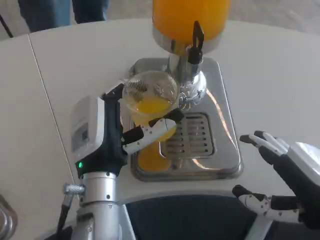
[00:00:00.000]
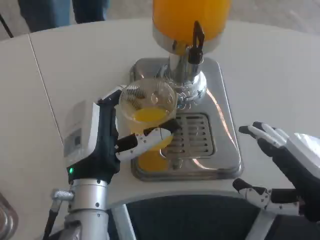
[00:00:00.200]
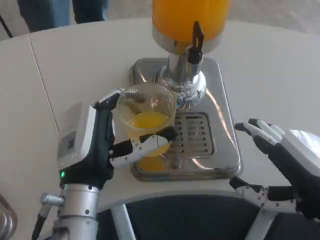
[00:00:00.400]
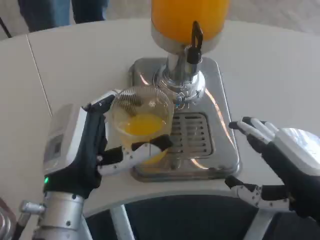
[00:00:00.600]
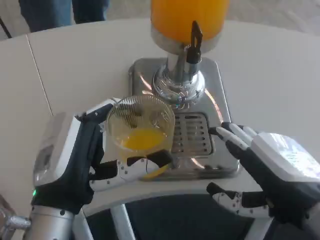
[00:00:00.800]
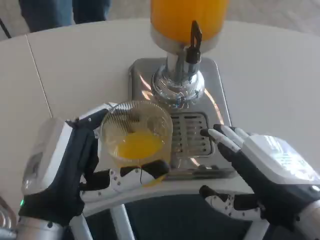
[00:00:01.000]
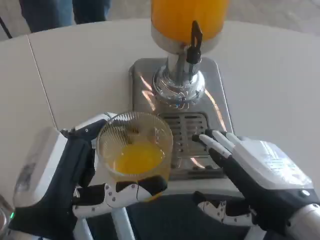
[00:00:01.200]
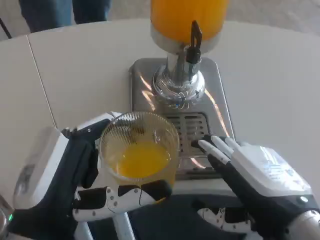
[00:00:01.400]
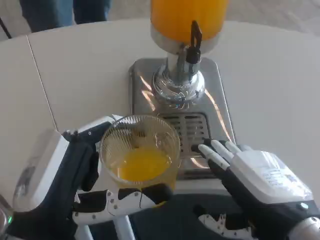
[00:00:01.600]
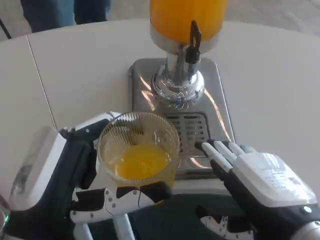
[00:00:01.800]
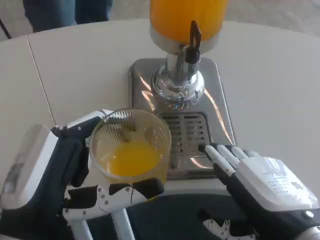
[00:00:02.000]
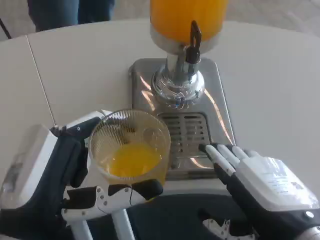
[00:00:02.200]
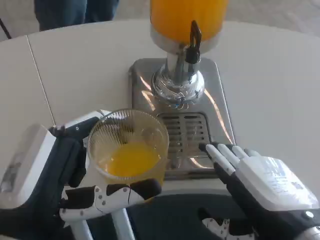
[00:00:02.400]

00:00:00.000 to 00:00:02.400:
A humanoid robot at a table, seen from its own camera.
Task of the whole recording: Grasp the cup under the faucet to collect the drink, then remove the cup.
00:00:00.000 to 00:00:01.200: The left hand is displaced backward and to the left by roughly 15 cm.

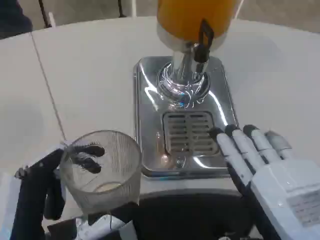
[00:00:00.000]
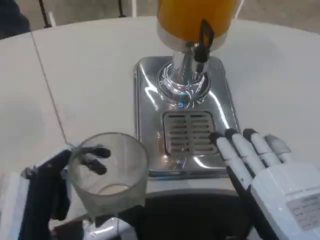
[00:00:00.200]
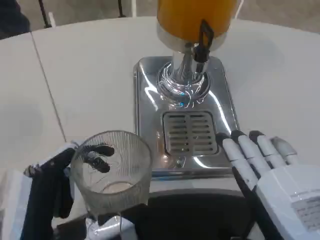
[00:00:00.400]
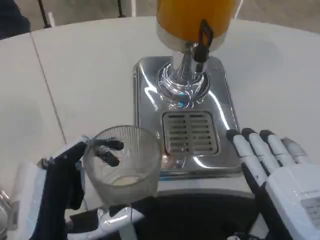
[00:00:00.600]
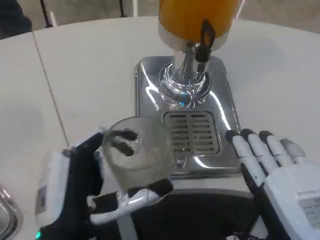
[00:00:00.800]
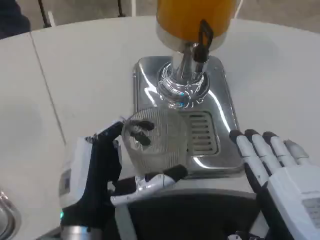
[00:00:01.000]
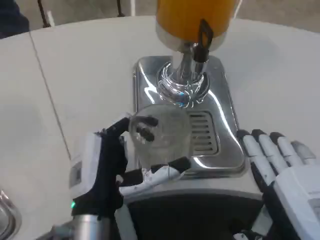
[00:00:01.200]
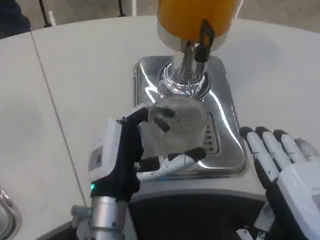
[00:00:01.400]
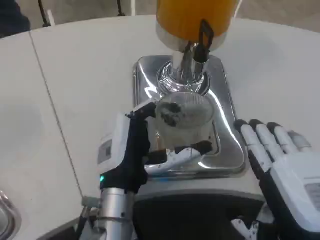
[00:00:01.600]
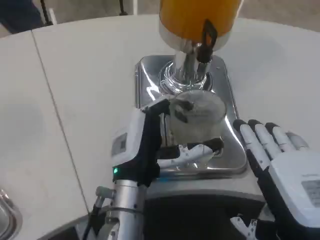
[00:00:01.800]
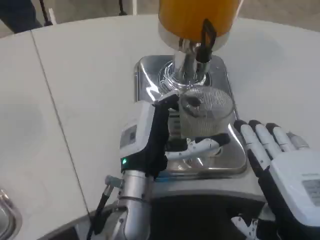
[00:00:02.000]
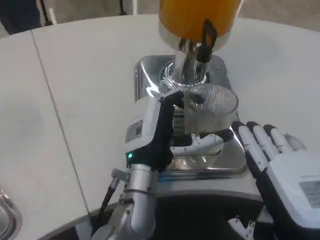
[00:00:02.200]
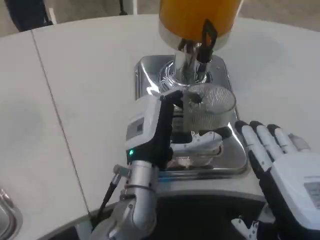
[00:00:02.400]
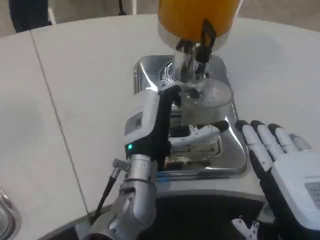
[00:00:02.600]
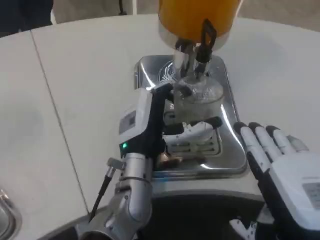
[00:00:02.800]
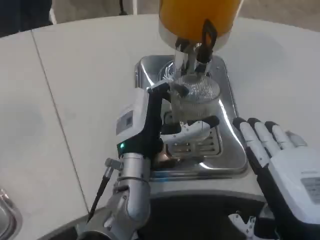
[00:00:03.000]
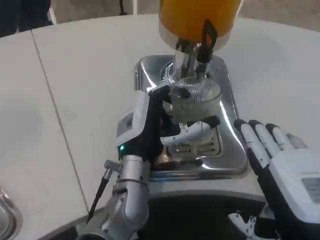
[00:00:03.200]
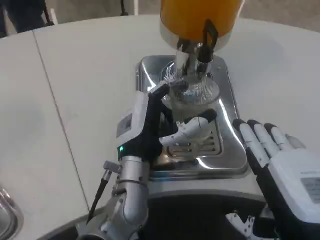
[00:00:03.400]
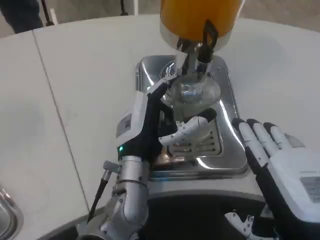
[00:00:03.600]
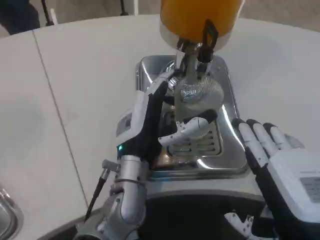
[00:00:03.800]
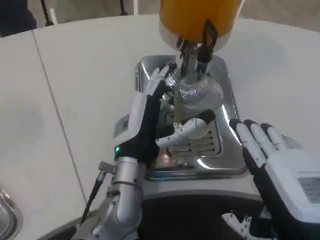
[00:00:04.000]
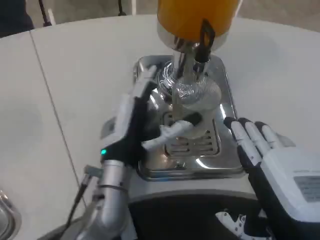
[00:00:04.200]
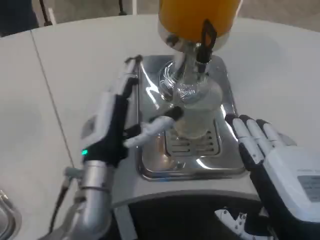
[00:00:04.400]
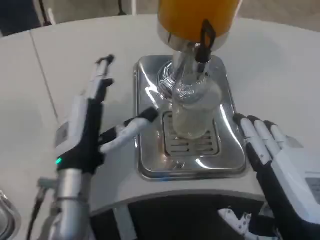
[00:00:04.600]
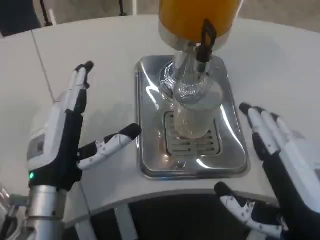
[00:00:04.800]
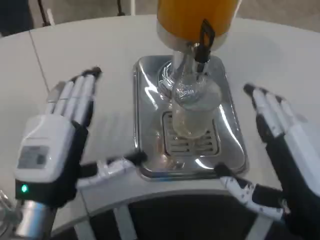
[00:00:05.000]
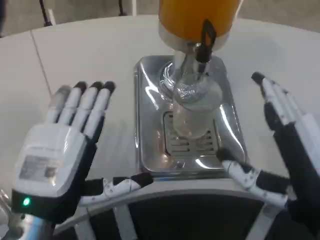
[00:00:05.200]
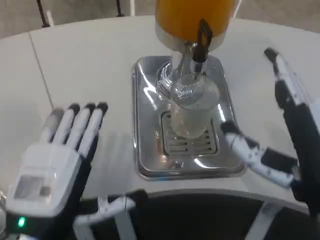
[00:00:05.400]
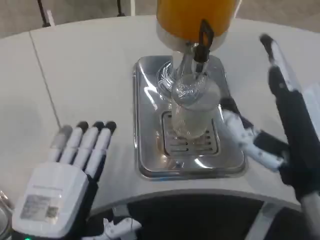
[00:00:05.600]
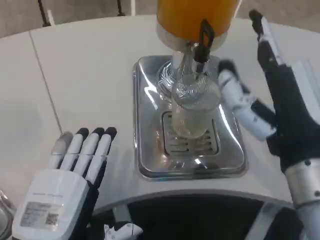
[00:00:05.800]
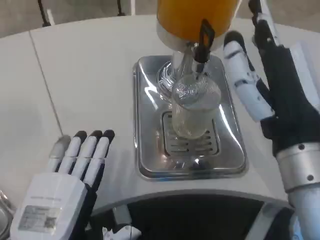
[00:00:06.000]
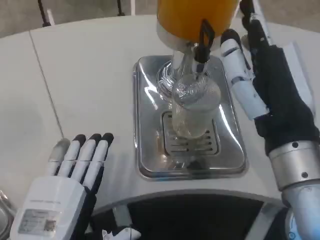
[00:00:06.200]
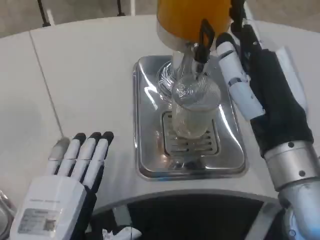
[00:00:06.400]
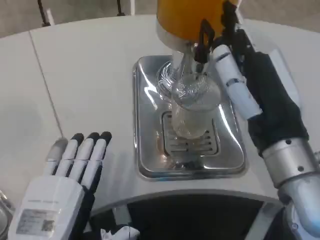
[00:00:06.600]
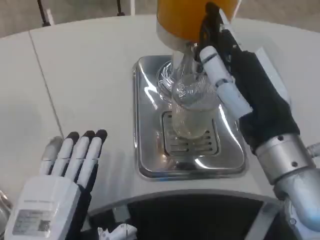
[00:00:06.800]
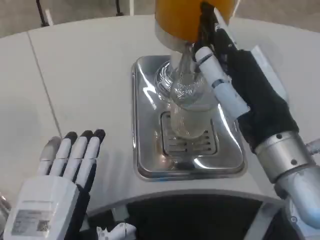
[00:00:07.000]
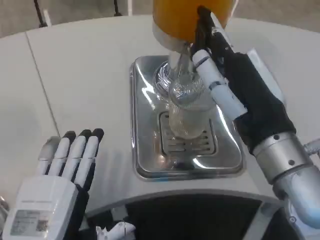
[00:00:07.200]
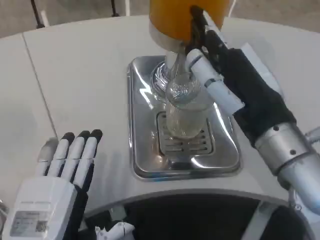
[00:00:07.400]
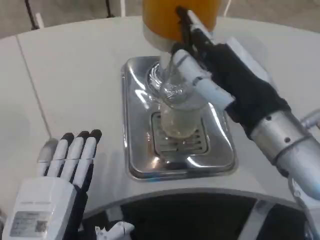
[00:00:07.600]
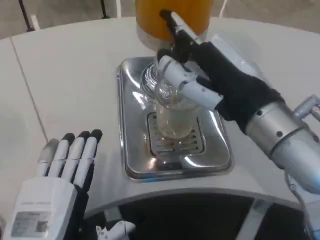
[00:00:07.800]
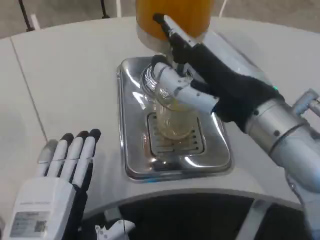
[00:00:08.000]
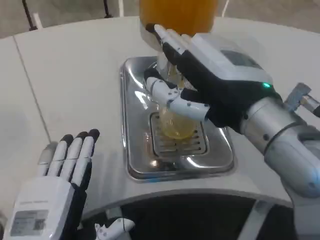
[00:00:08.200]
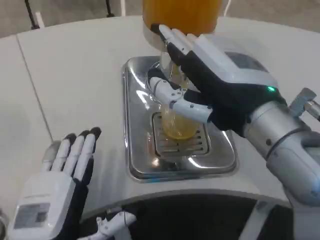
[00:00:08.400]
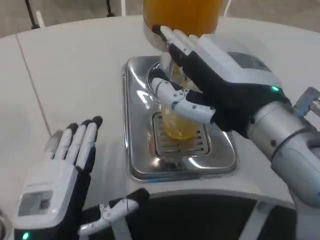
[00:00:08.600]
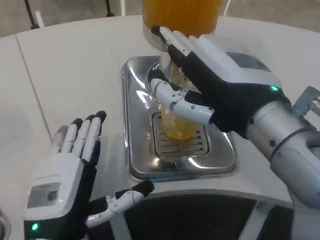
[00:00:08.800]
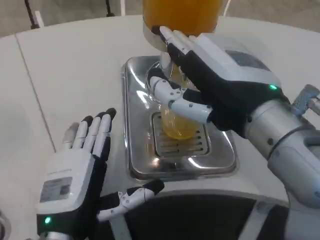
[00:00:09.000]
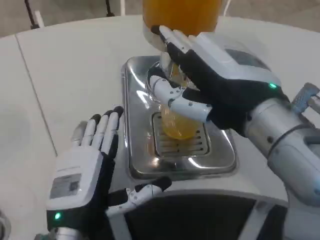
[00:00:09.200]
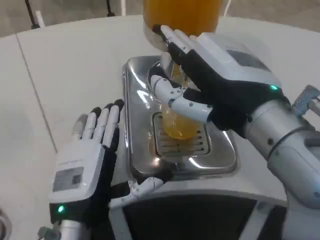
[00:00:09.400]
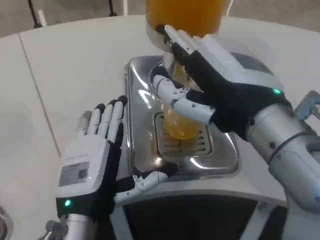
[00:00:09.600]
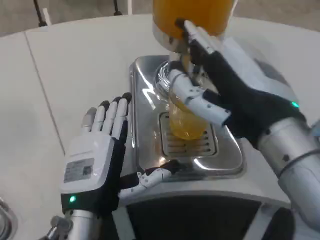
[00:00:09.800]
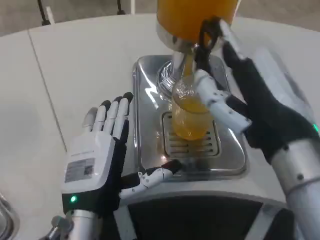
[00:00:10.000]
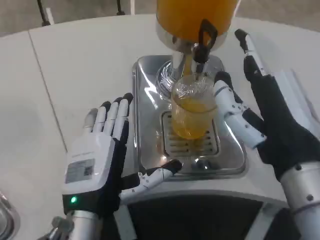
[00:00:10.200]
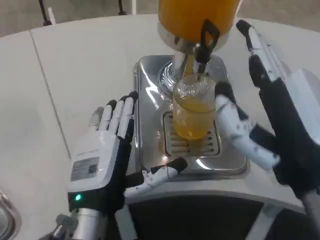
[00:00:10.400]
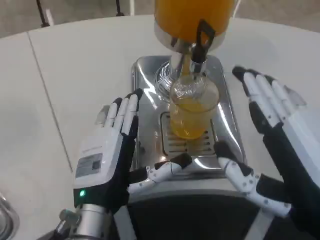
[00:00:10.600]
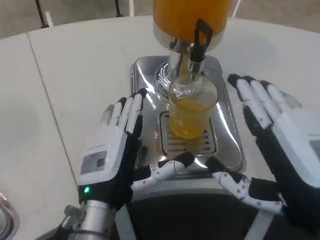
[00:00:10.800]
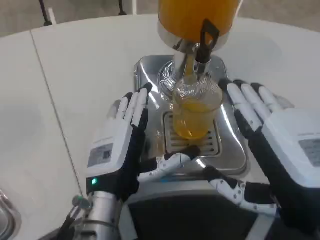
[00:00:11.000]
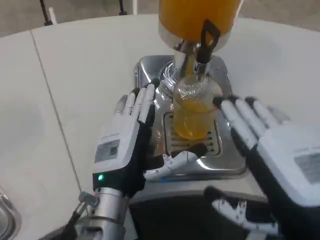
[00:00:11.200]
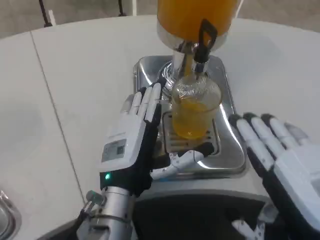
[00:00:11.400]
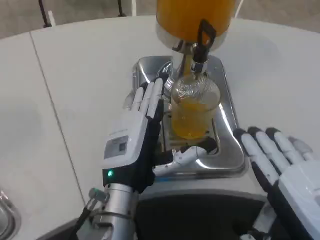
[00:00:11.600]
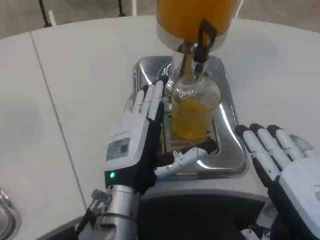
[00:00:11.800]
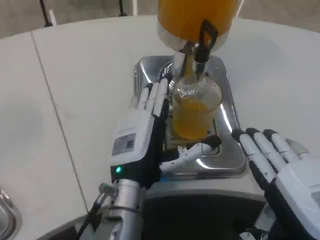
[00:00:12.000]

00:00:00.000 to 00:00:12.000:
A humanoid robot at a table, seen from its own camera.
Task of the whole recording: Grasp the cup under the faucet to collect the drink, then remove the cup.
00:00:00.000 to 00:00:01.600: The left hand travels forward and to the right by roughly 15 cm.
00:00:01.600 to 00:00:03.000: The left hand is displaced forward by some 5 cm.
00:00:03.000 to 00:00:04.400: The left hand is displaced to the left by roughly 5 cm.
00:00:04.400 to 00:00:06.000: The left hand travels backward by roughly 15 cm. Meanwhile the right hand shifts approximately 10 cm forward.
00:00:07.600 to 00:00:09.000: The left hand ends up approximately 5 cm from where it was. The right hand shifts by about 5 cm.
00:00:09.000 to 00:00:10.400: The right hand travels downward by roughly 5 cm.
00:00:10.400 to 00:00:12.000: The left hand ends up some 5 cm from where it was, while the right hand moves approximately 5 cm.

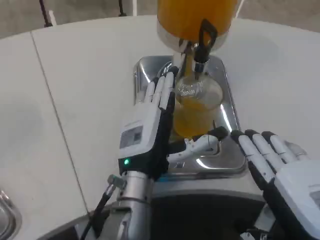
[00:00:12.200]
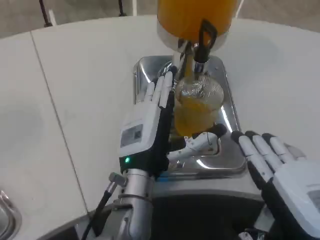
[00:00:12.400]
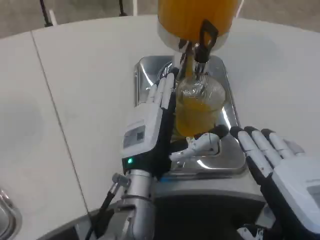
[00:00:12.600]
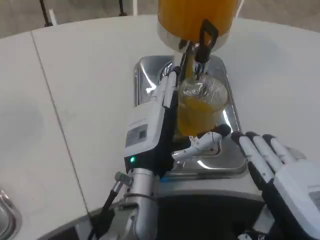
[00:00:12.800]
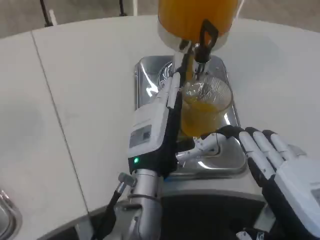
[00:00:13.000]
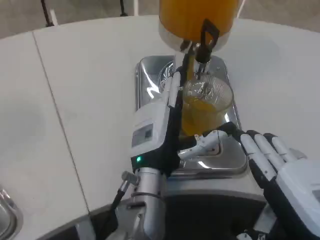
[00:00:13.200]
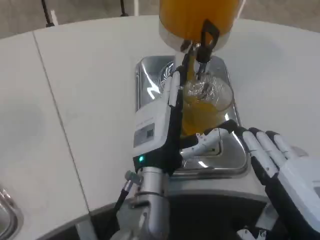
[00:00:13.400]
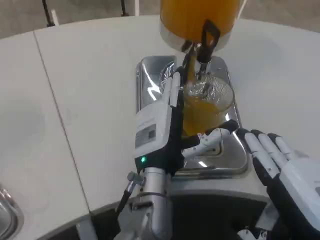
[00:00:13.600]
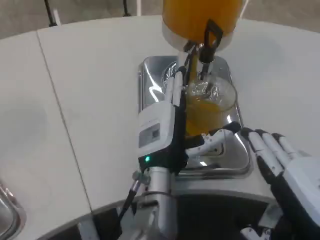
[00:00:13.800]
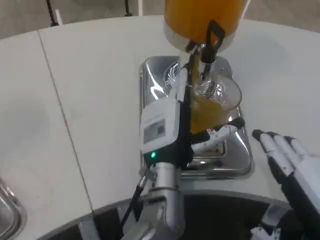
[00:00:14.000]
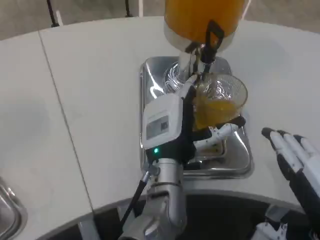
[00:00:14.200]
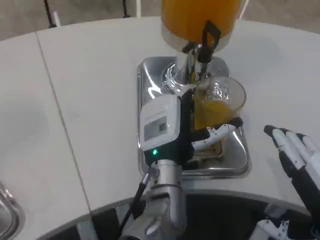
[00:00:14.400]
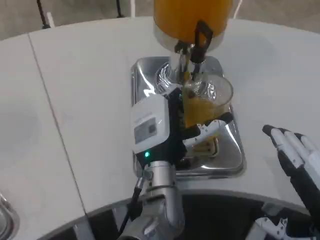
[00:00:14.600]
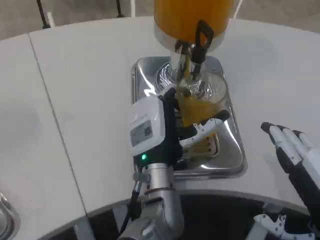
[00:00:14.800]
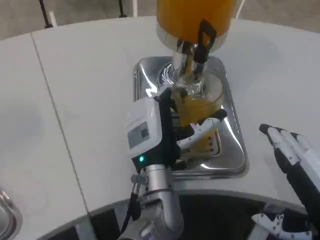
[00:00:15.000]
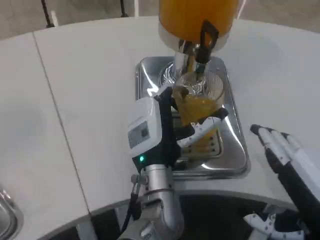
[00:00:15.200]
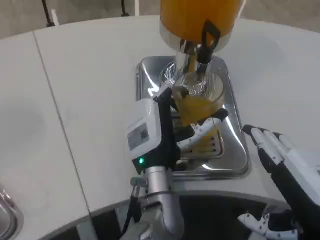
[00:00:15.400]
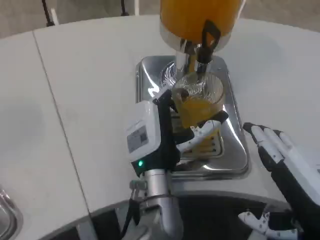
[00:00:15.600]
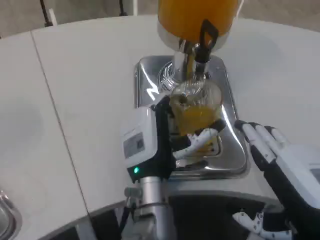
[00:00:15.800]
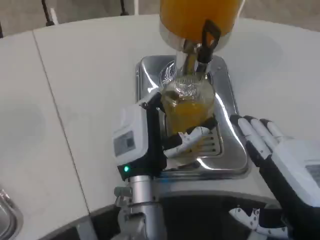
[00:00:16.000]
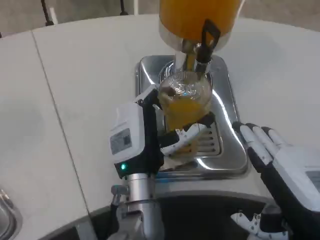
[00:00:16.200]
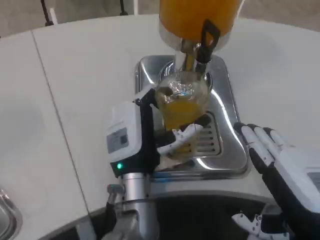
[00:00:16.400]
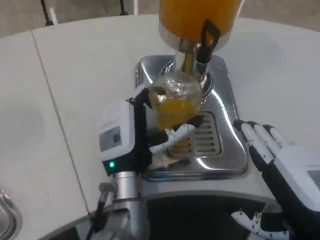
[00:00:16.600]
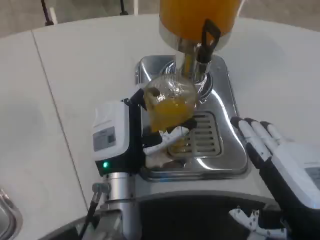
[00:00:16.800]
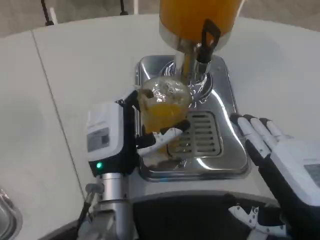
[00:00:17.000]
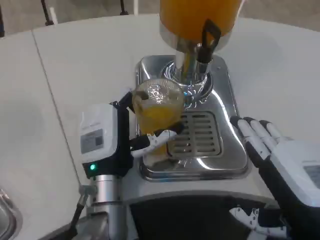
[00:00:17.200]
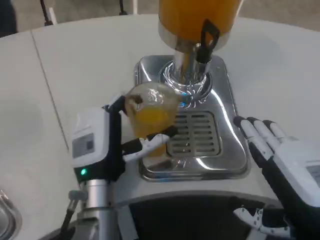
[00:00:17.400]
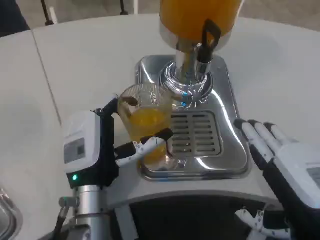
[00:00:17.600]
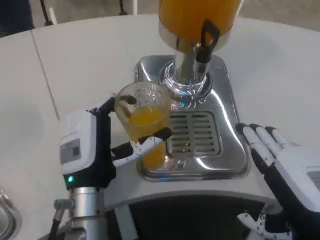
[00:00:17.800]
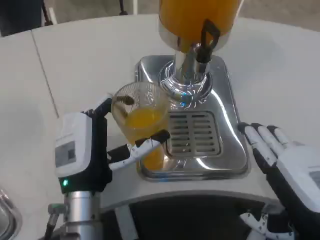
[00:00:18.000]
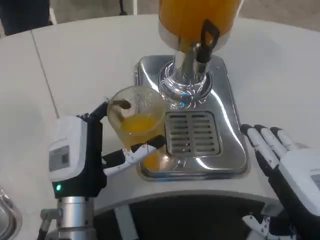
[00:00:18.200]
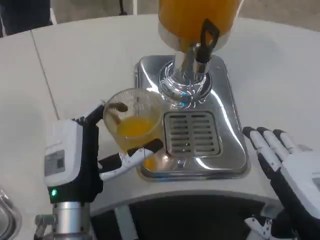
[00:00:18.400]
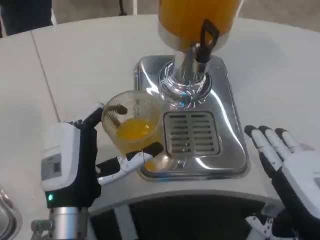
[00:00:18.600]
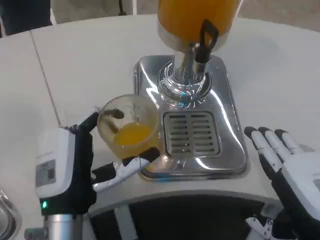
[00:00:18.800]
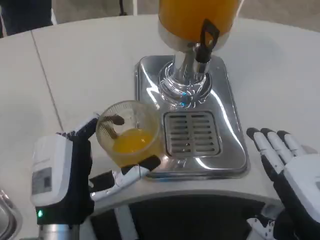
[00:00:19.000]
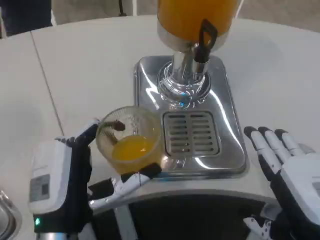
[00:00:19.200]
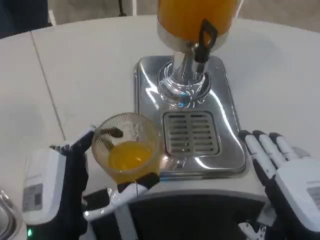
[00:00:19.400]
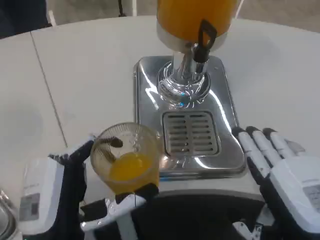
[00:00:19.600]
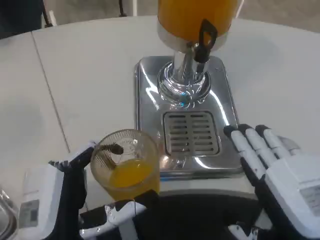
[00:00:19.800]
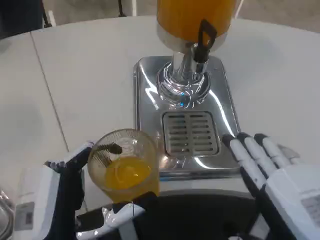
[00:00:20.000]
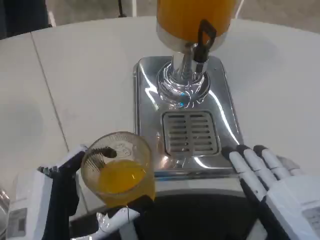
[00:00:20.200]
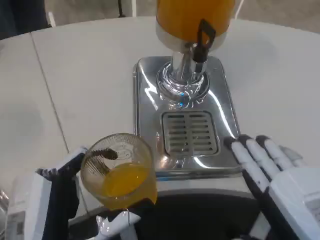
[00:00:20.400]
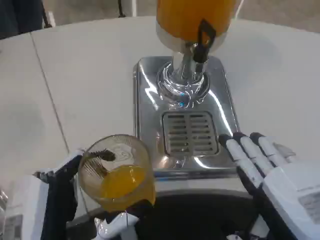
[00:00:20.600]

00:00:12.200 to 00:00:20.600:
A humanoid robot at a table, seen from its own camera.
Task of the whole recording: Grasp the cup under the faucet to collect the drink, then remove the cup.
00:00:12.200 to 00:00:15.000: The hands stay close to where they were, moving slightly.
00:00:16.400 to 00:00:17.800: The left hand heads to the left, covering about 5 cm.
00:00:17.800 to 00:00:19.200: The left hand travels backward by some 10 cm.
00:00:19.200 to 00:00:20.600: The left hand moves backward, approximately 5 cm.
